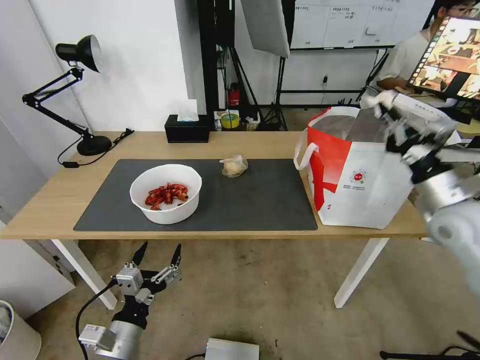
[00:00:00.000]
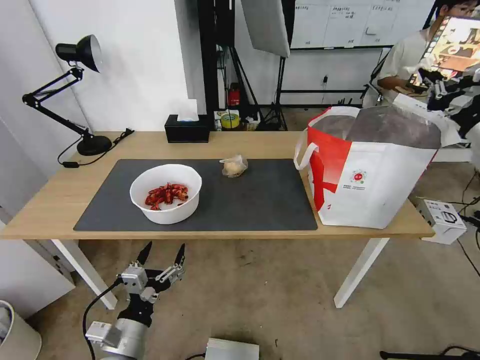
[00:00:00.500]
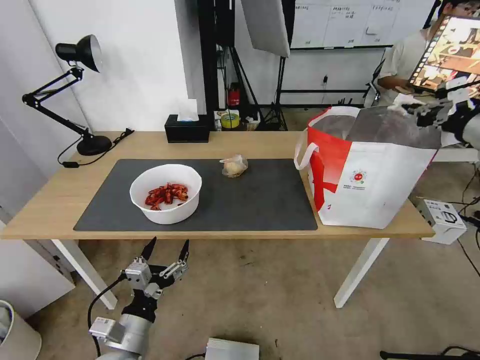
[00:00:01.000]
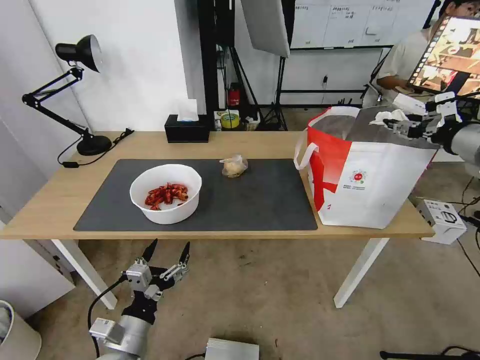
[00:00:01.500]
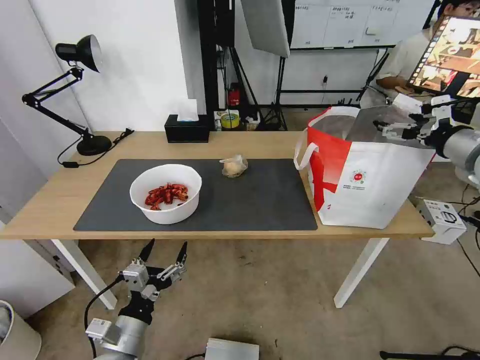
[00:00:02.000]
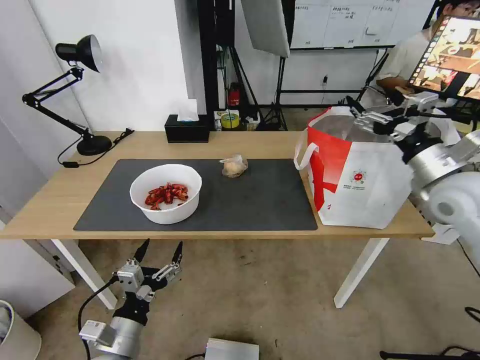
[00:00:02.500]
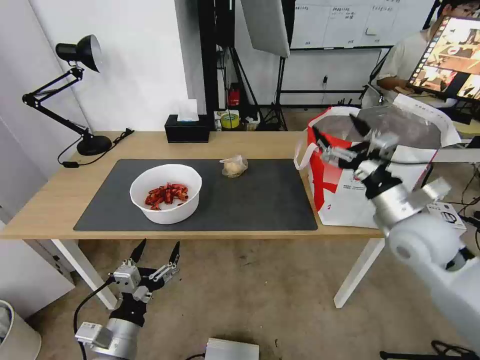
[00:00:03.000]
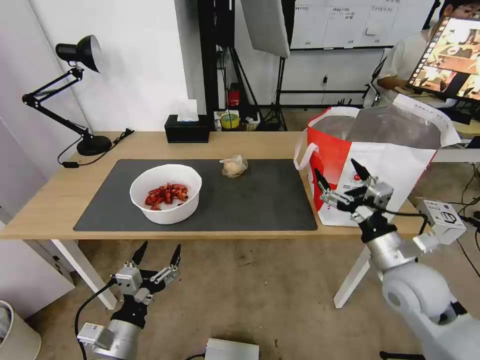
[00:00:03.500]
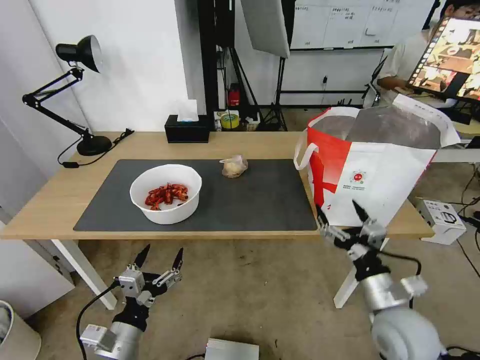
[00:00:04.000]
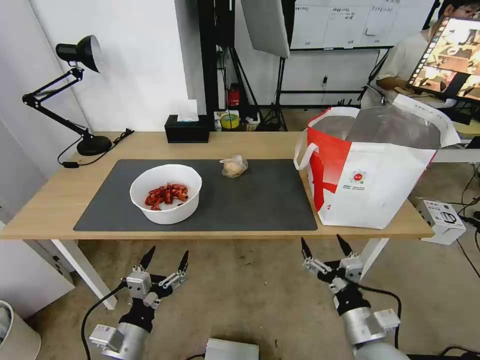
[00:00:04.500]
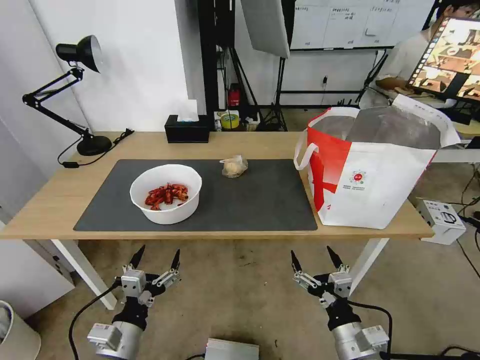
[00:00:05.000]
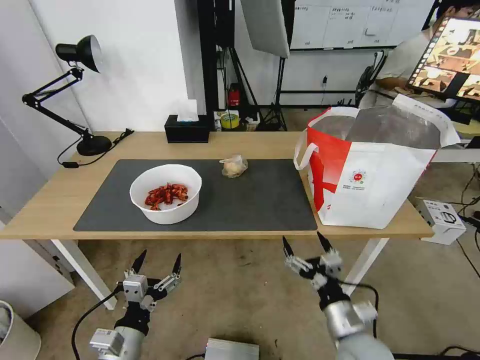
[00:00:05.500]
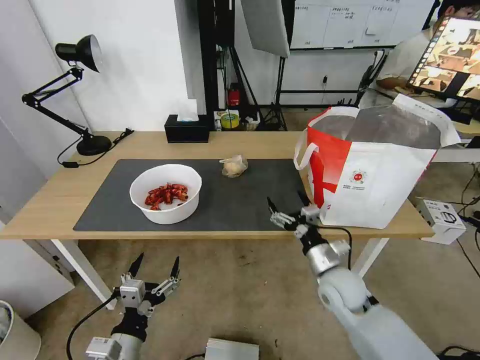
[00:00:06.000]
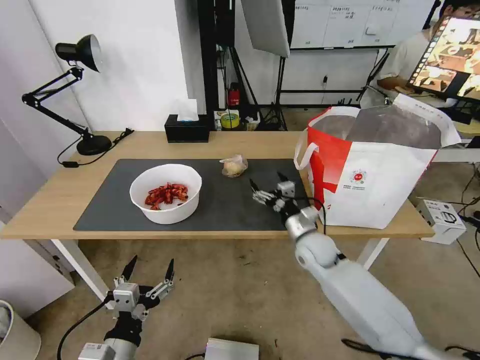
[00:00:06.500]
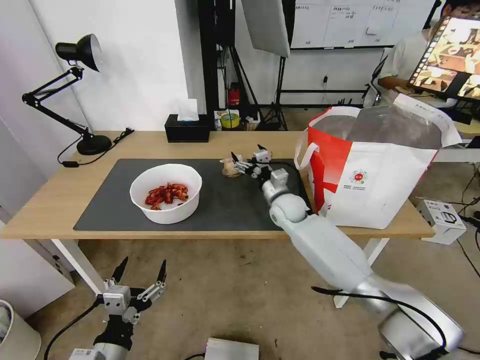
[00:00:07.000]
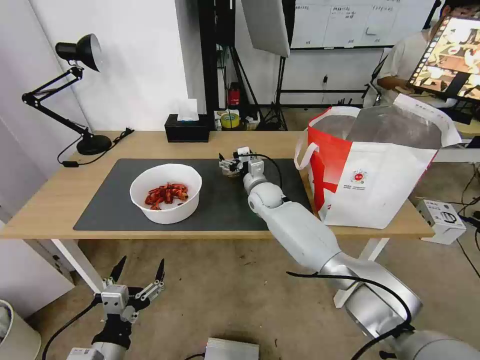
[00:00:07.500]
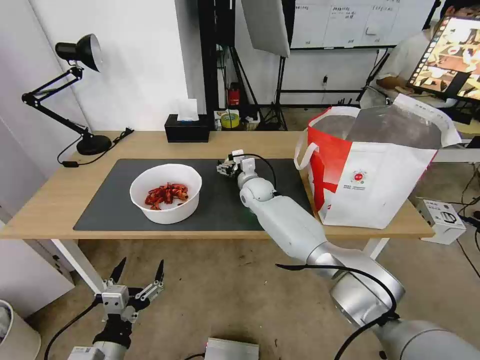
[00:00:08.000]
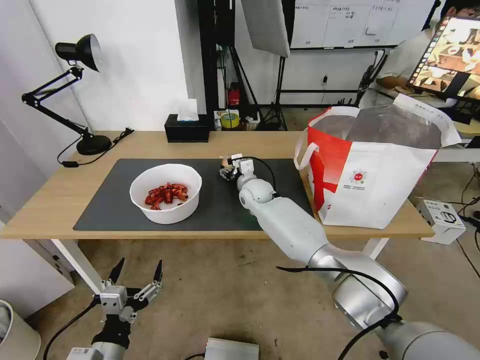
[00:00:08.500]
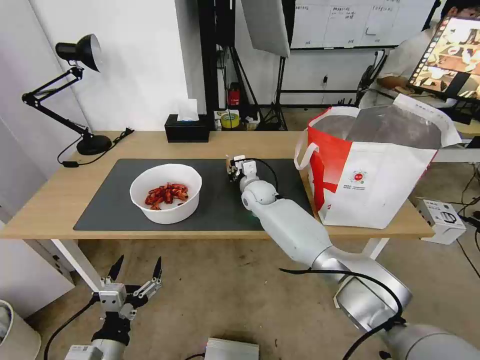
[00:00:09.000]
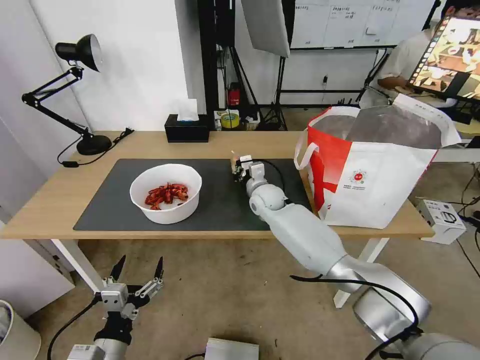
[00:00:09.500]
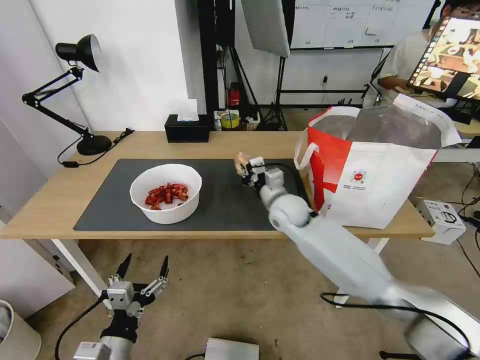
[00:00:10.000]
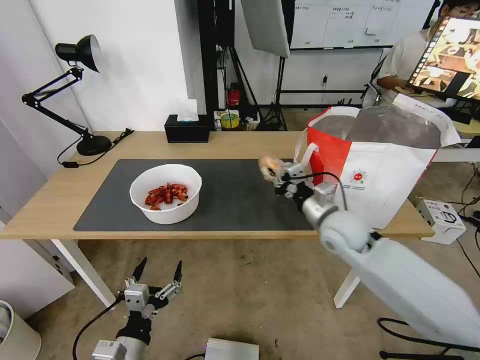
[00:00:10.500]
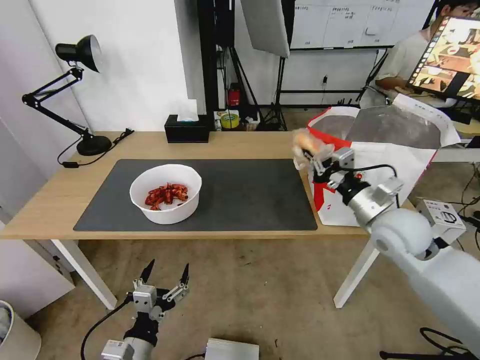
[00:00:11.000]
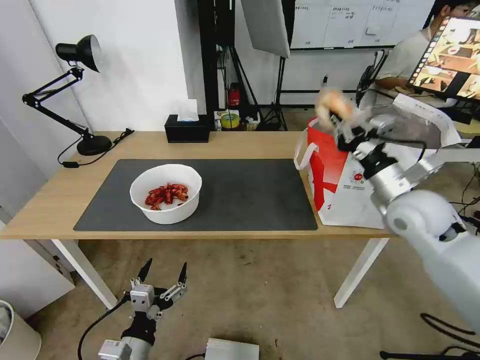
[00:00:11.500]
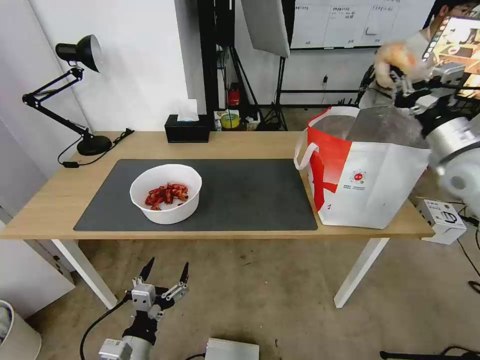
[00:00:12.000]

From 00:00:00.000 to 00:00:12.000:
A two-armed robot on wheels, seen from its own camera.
Task of the whole recording: Pick up the trash from the table and place it into the takeout bag.
From 00:00:00.000 to 00:00:02.000: The right gripper travels upward by about 10 cm, and opens.
From 00:00:02.000 to 00:00:04.000: The right gripper shifts about 35 cm downward, backward and to the left.
From 00:00:04.000 to 00:00:06.000: The right gripper heads forward and to the left, covering approximately 10 cm.
From 00:00:06.000 to 00:00:08.000: The right gripper travels forward and to the left by some 35 cm.
From 00:00:08.000 to 00:00:10.000: The right gripper travels backward and to the right by some 10 cm, and closes its fingers.
From 00:00:10.000 to 00:00:12.000: The right gripper goes roughly 35 cm to the right and upward.

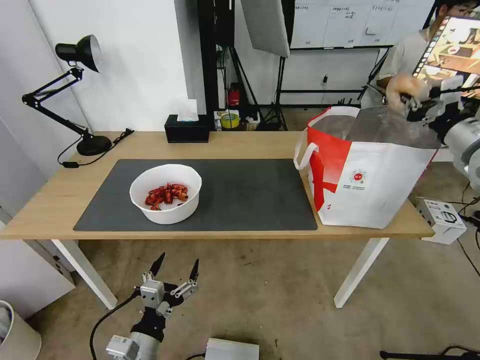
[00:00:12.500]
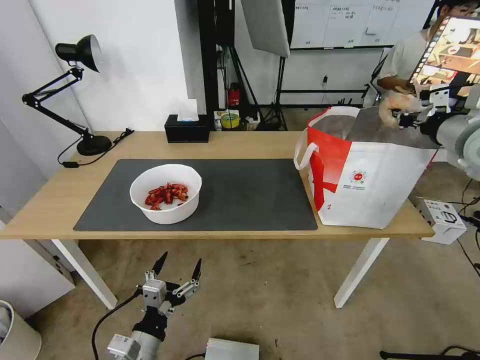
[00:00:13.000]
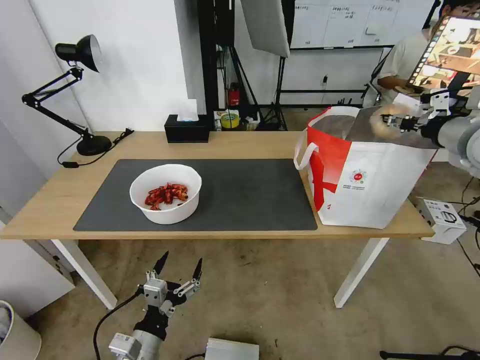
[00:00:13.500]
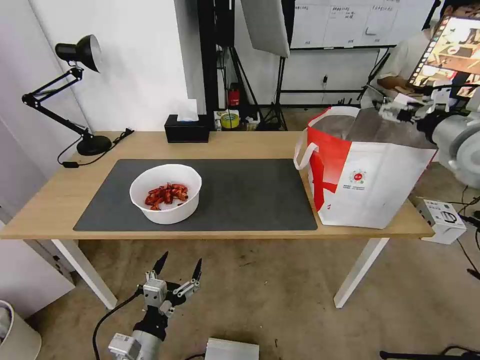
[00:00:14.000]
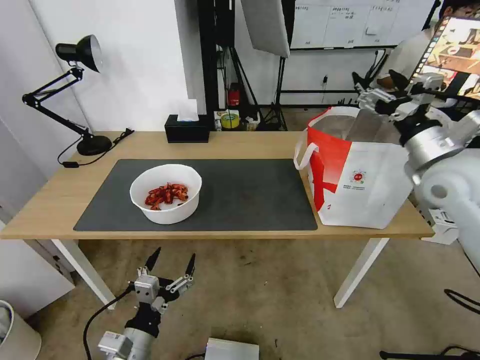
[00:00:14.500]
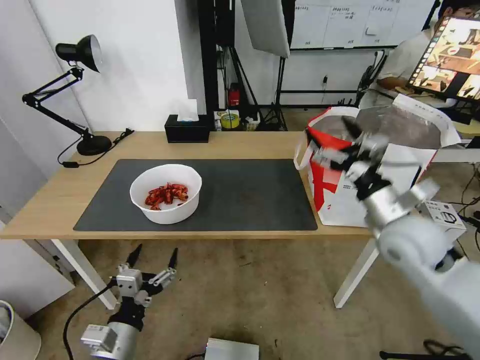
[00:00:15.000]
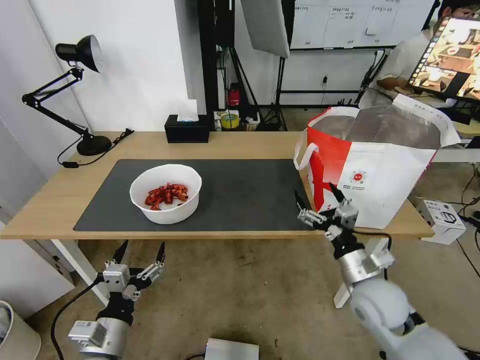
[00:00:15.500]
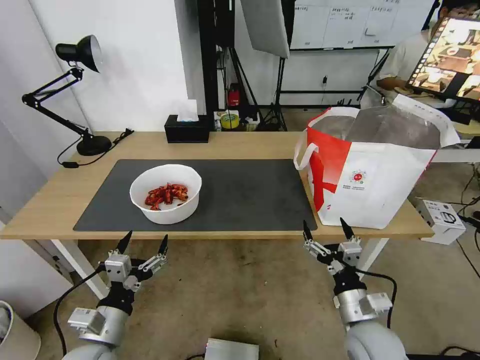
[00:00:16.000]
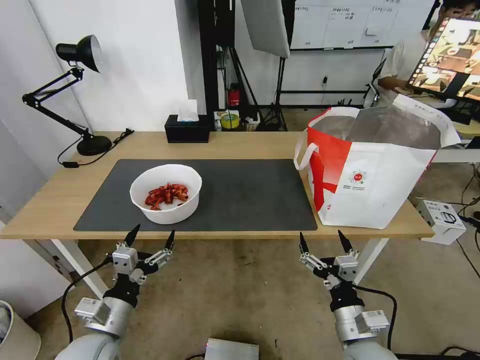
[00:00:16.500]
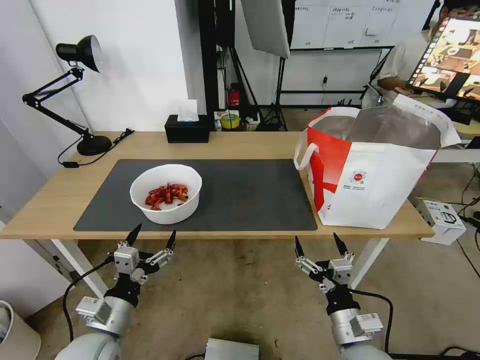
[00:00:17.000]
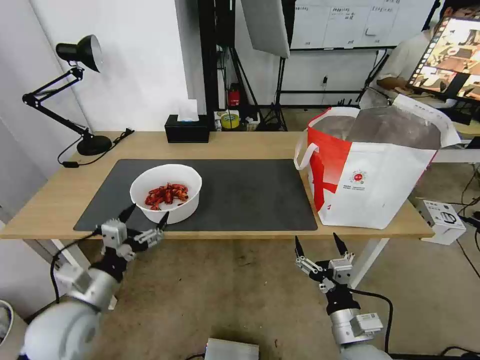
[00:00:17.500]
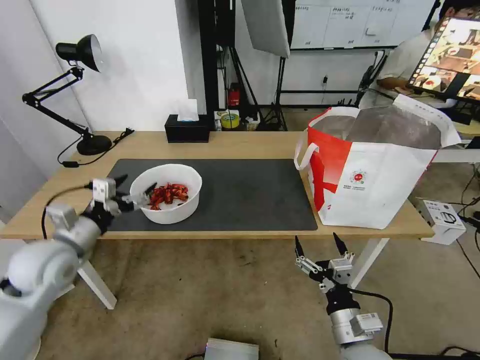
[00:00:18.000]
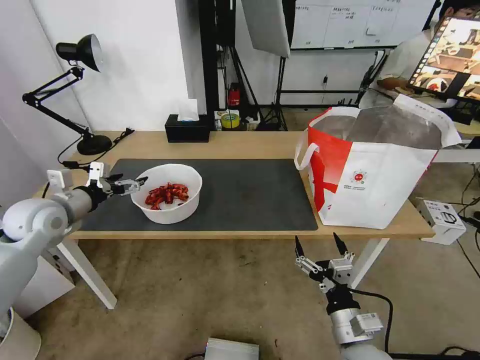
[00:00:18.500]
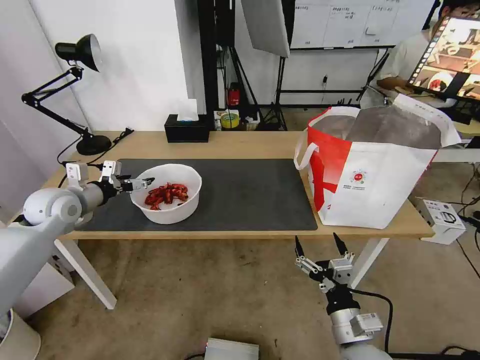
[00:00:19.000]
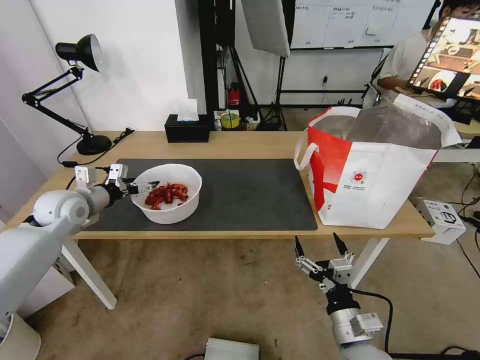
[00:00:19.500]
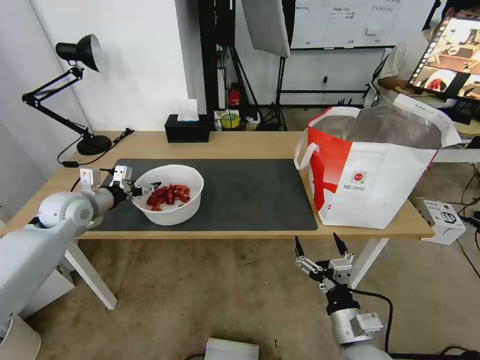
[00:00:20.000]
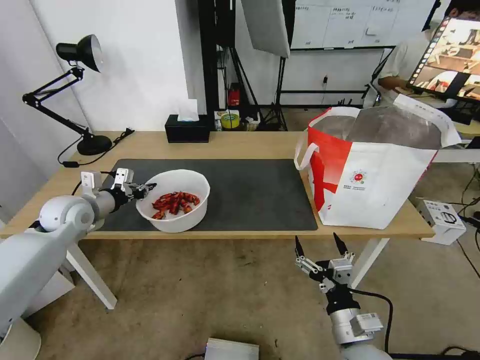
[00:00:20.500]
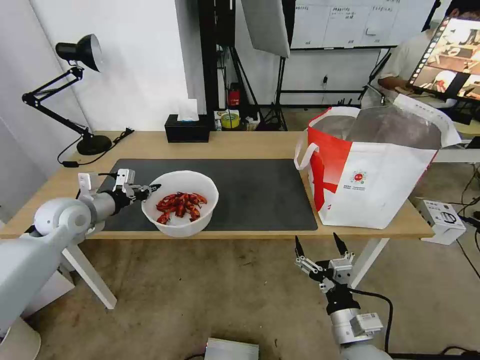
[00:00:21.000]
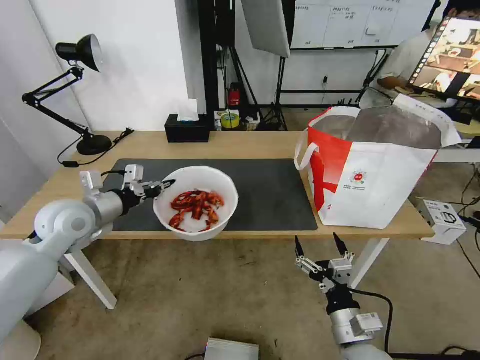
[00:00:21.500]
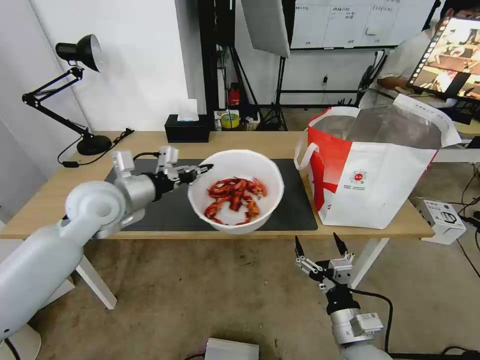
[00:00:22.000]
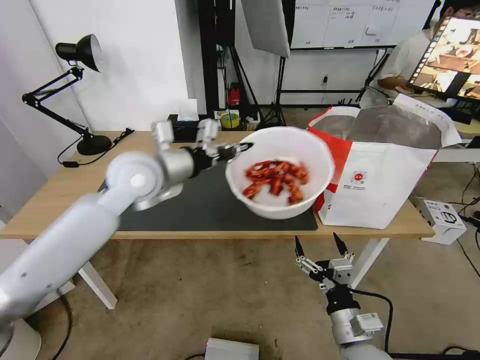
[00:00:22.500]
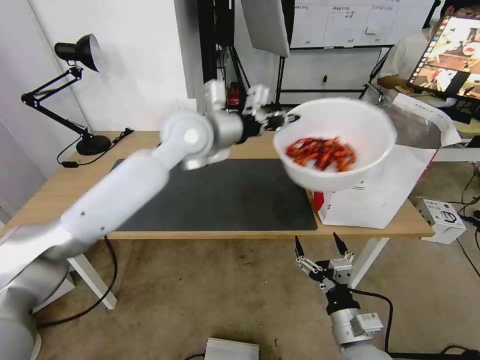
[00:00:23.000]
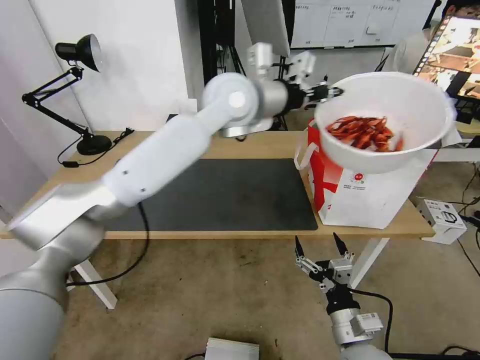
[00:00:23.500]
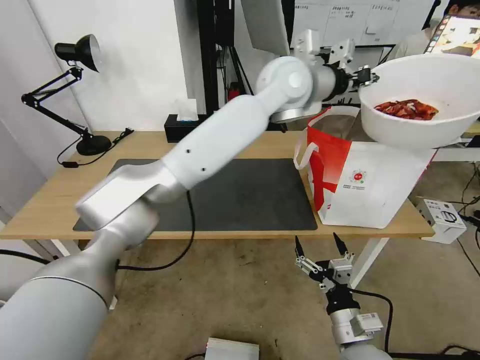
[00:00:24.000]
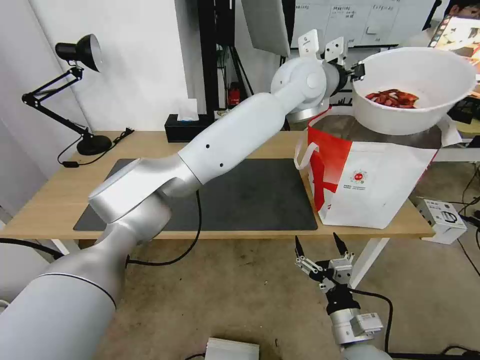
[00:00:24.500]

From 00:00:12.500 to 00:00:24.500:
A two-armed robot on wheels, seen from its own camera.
Task of the whole recording: Pick up the trash from the table and place it into the takeout bag.
From 00:00:12.500 to 00:00:14.500: The right gripper moves to the left, approximately 10 cm, and opens up.
From 00:00:14.500 to 00:00:16.500: The right gripper travels downward, backward and to the left by roughly 35 cm; the left gripper moves some 5 cm.
From 00:00:16.500 to 00:00:18.500: The left gripper shifts about 30 cm forward, to the left and upward.
From 00:00:18.500 to 00:00:20.500: The left gripper changes place by roughly 5 cm, and closes.
From 00:00:20.500 to 00:00:22.500: The left gripper goes roughly 25 cm to the right and upward.
From 00:00:22.500 to 00:00:24.500: The left gripper goes roughly 35 cm to the right and upward.

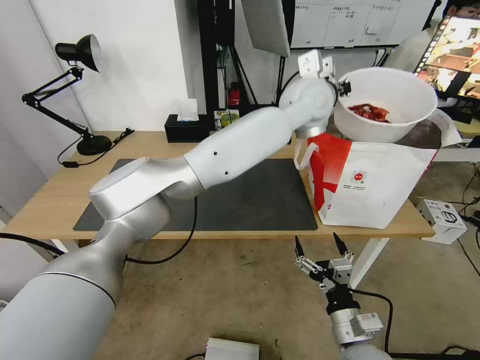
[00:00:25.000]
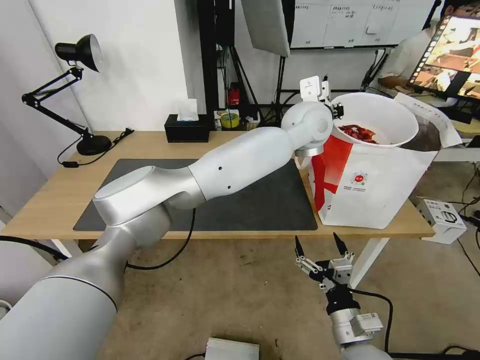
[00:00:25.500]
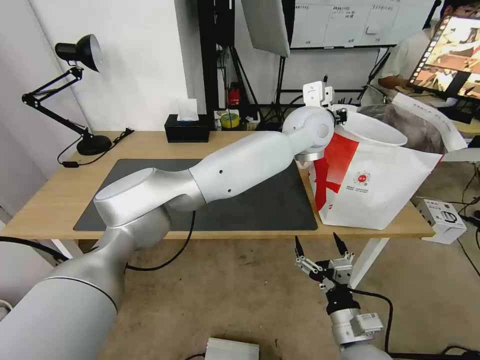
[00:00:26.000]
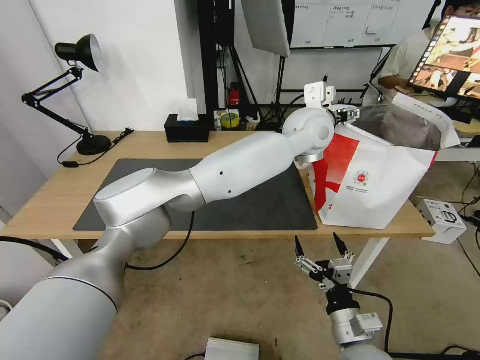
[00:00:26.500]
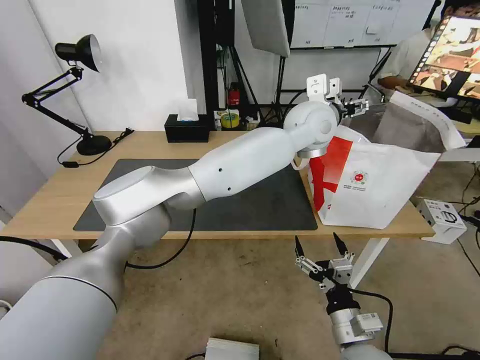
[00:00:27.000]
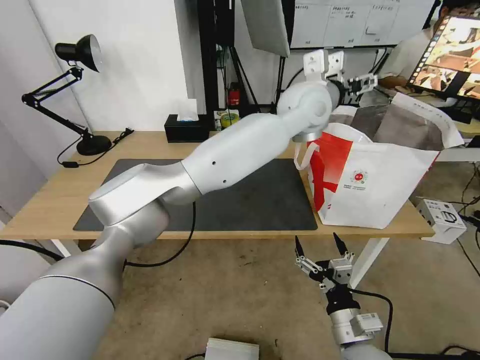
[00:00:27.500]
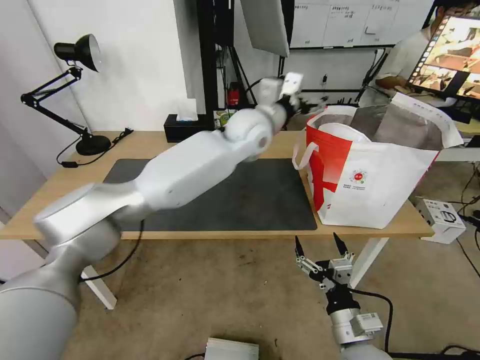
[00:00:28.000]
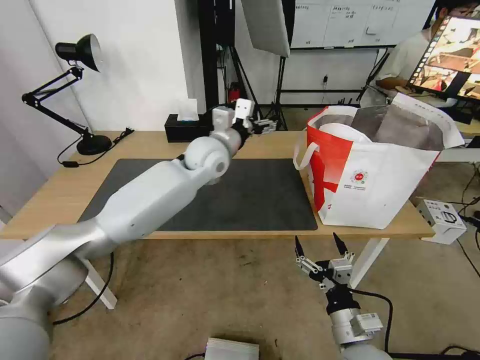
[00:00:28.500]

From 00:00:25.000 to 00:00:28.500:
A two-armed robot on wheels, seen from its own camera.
Task of the whole recording: Pick up the trash from the table and place it into the takeout bag.
From 00:00:25.000 to 00:00:27.000: The left gripper opens.
From 00:00:27.000 to 00:00:28.500: The left gripper heads to the left and downward, covering roughly 25 cm.
